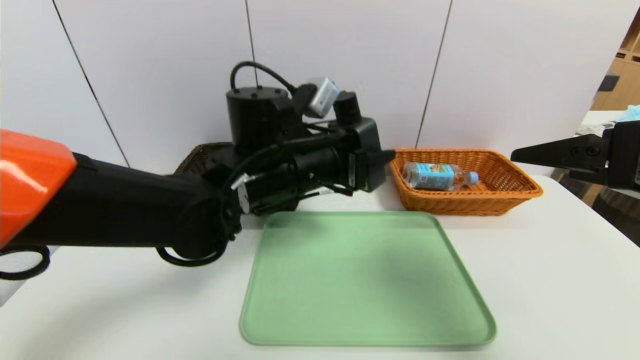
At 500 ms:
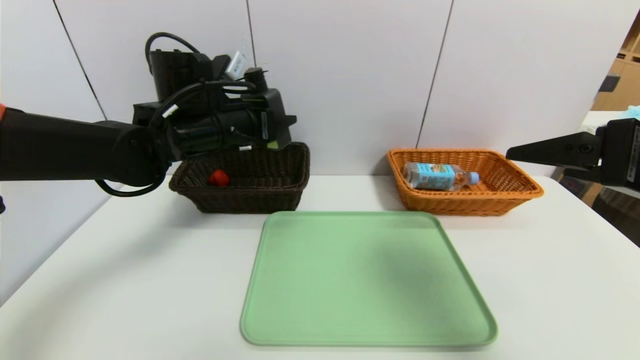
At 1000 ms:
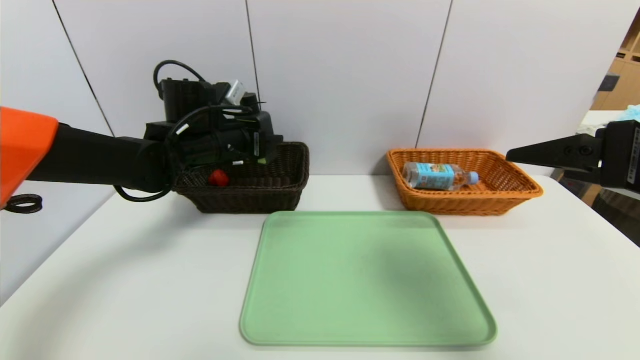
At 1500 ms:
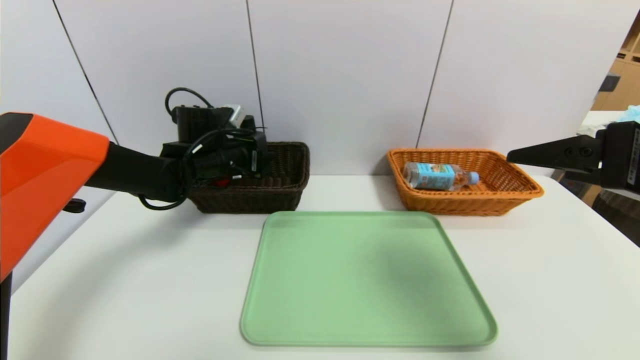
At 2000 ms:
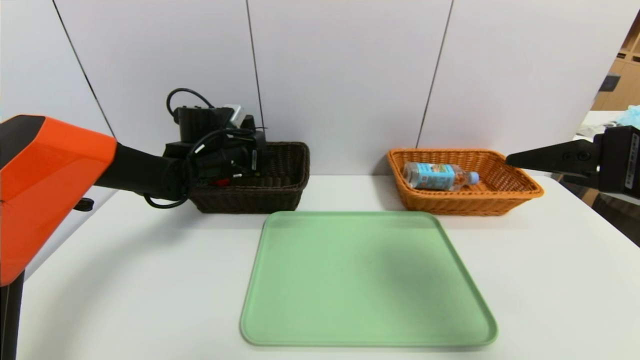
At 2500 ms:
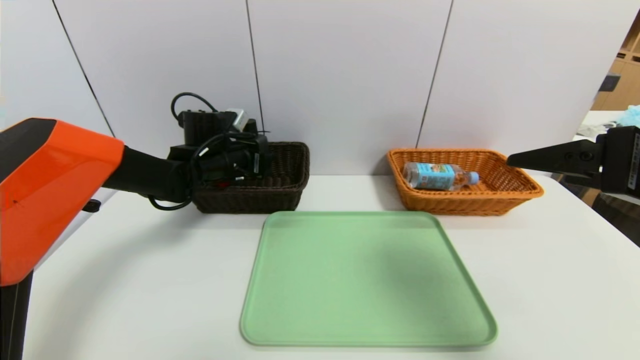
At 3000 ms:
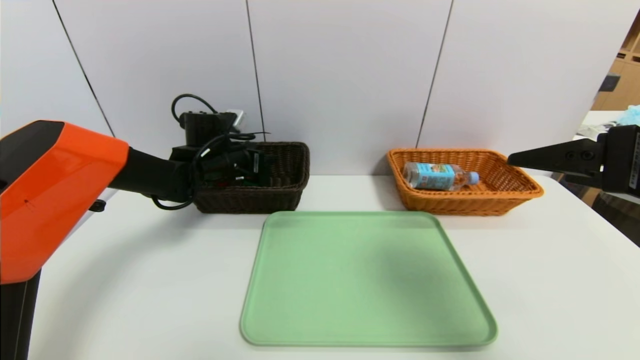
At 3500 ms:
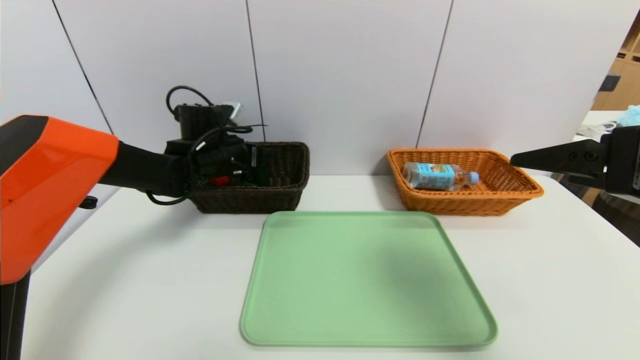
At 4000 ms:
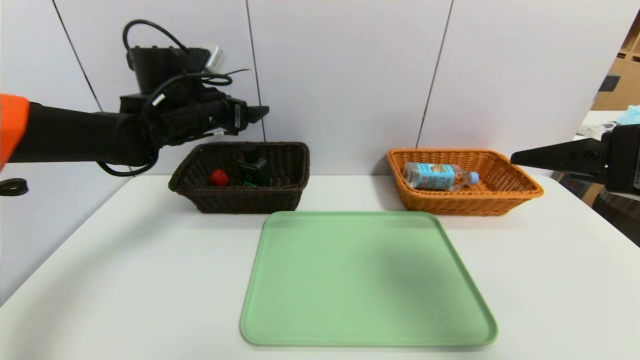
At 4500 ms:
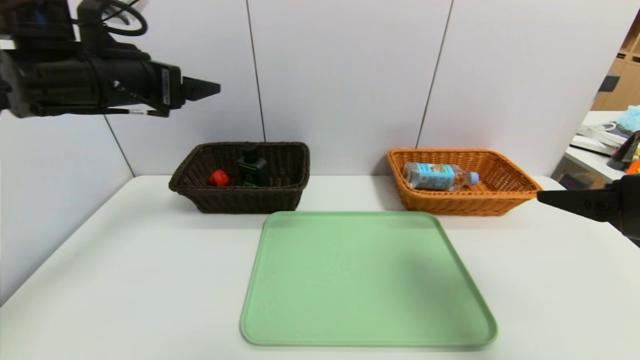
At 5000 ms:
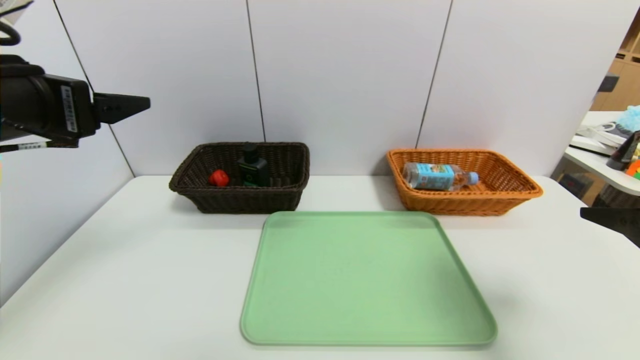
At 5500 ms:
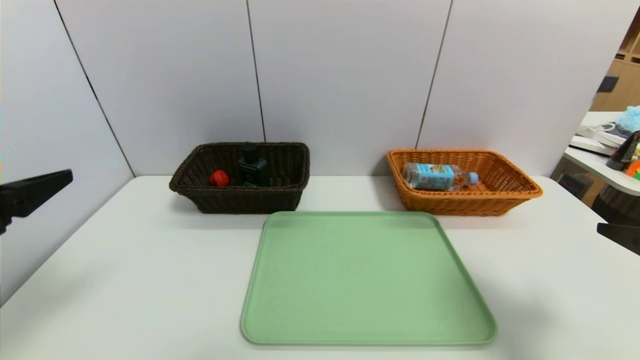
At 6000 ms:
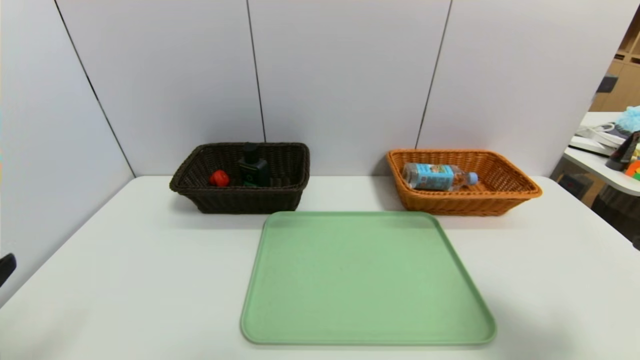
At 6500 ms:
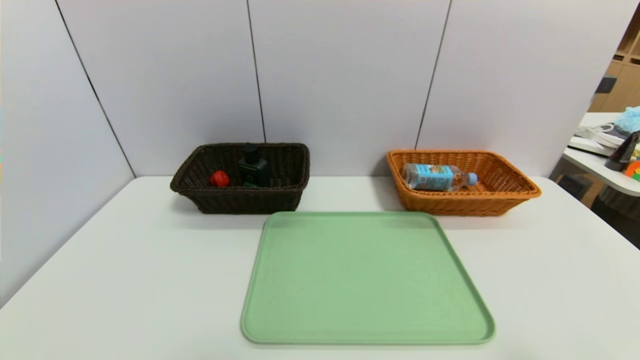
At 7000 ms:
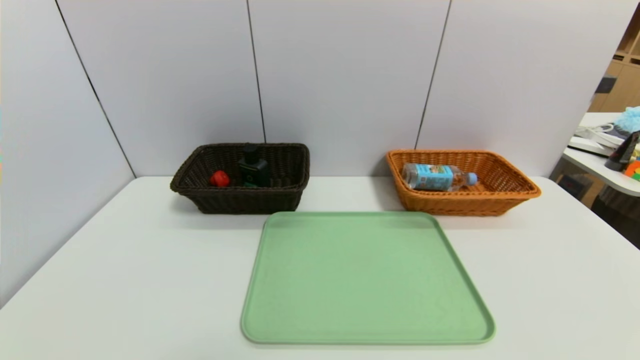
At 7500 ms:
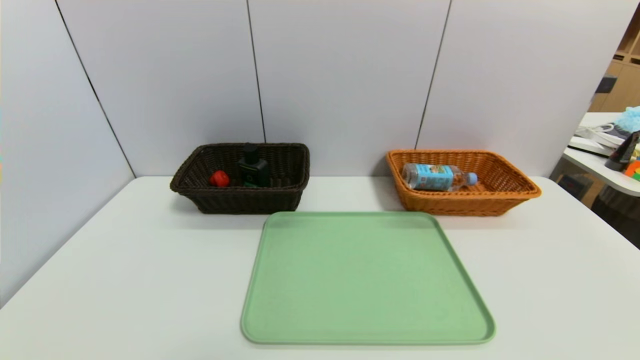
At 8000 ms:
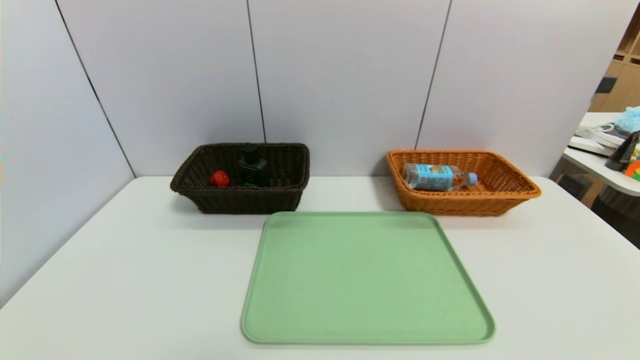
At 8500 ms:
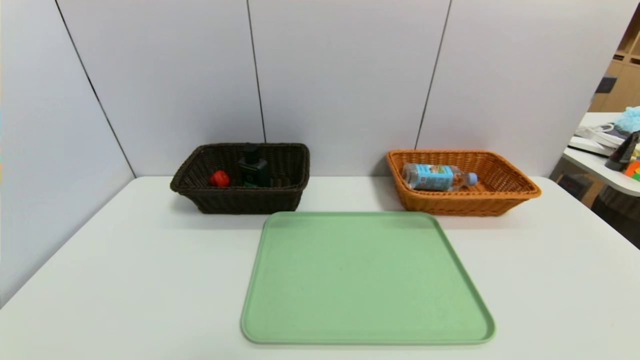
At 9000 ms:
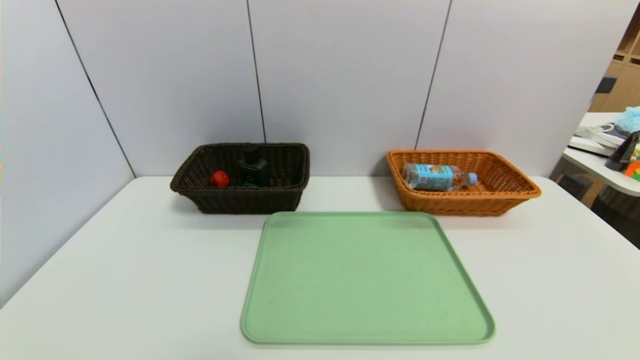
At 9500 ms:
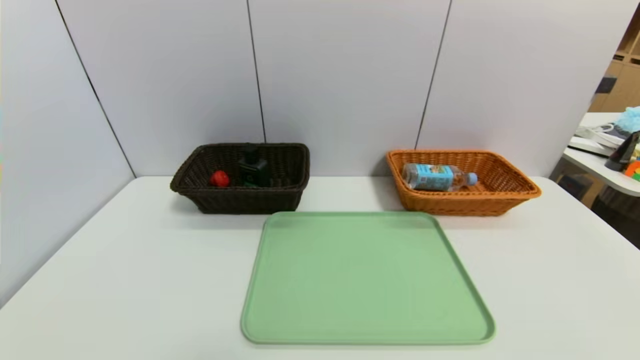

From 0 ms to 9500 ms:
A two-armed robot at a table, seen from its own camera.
Task of the whole recording: place the food in the right basket with the right gripper, and place the non food items in the left basket with the left gripper.
Step, from 0 ms to 3000 ms: Grasp the hard cleanser and put it in the left basket.
From 0 ms to 2000 ms: The left gripper is displaced to the left, forward and downward by about 20 cm.
From 2000 ms to 4000 ms: The left gripper shifts some 10 cm upward, and opens.
From 4000 ms to 5500 ms: The left gripper heads backward, covering approximately 30 cm, while the right gripper shifts about 10 cm downward and to the right.
From 5500 ms to 7500 ms: The right gripper moves backward and downward, about 20 cm. Meanwhile the left gripper moves downward and backward, about 20 cm.

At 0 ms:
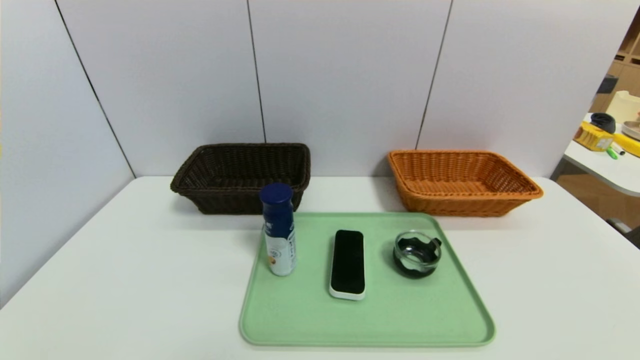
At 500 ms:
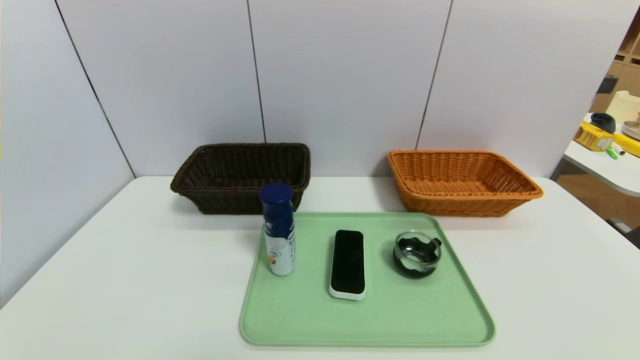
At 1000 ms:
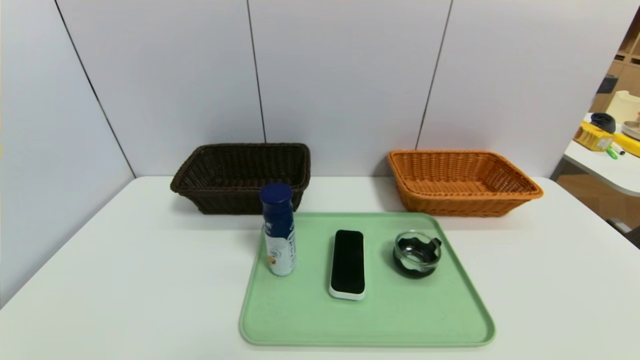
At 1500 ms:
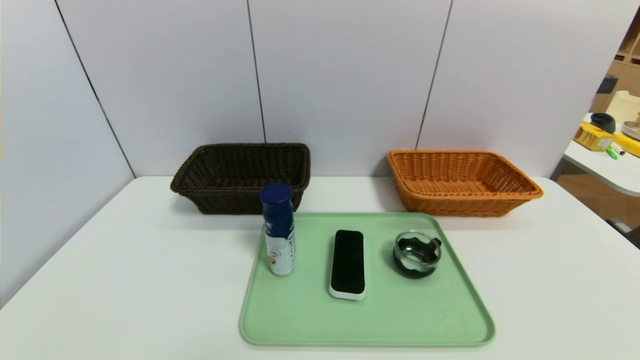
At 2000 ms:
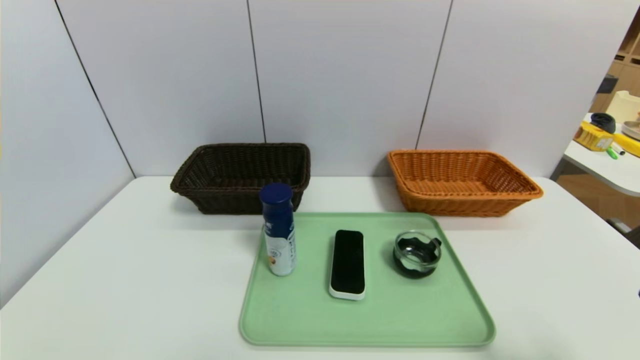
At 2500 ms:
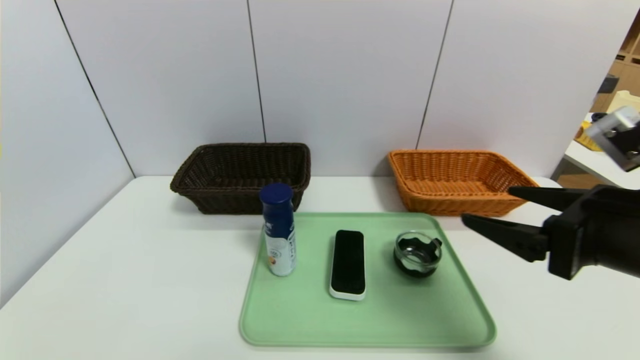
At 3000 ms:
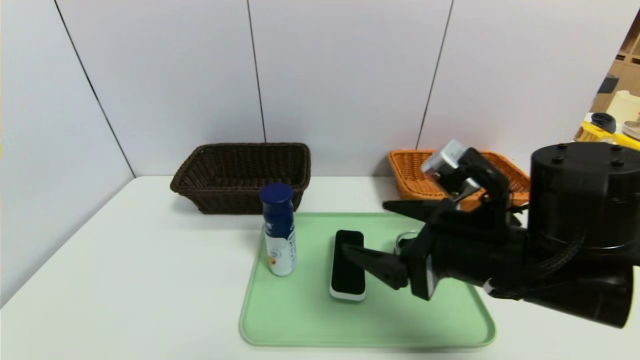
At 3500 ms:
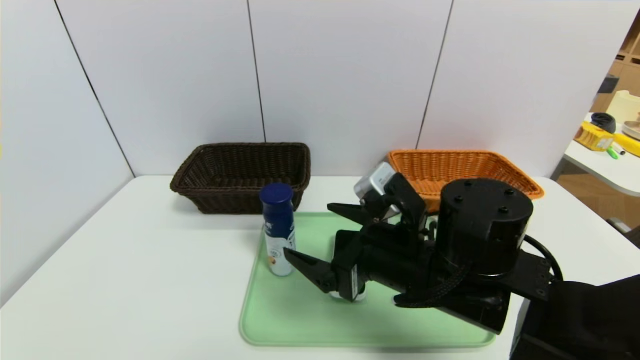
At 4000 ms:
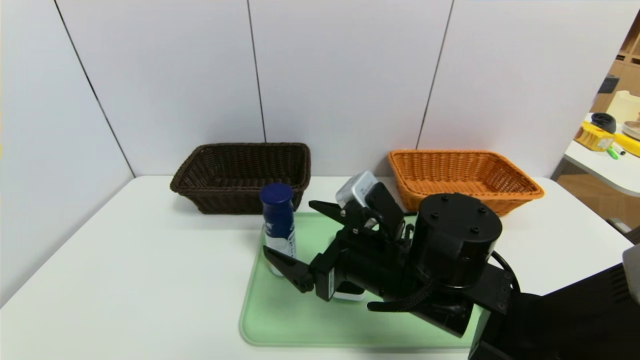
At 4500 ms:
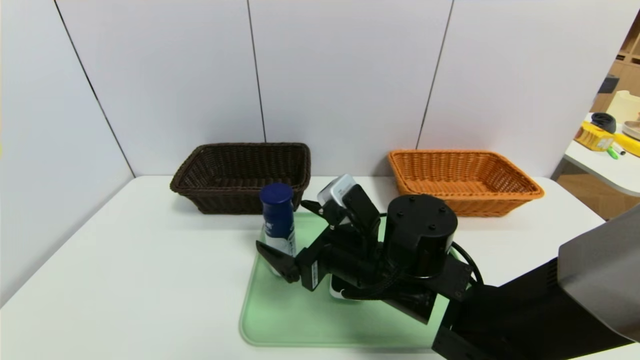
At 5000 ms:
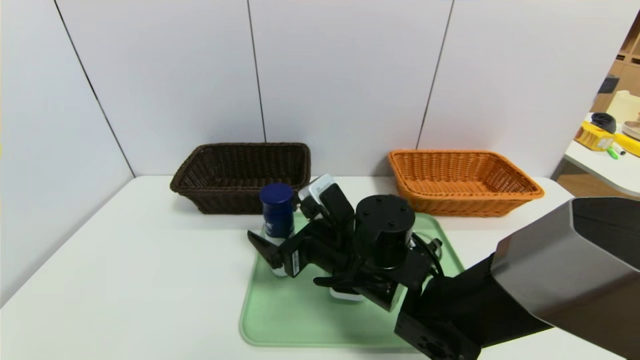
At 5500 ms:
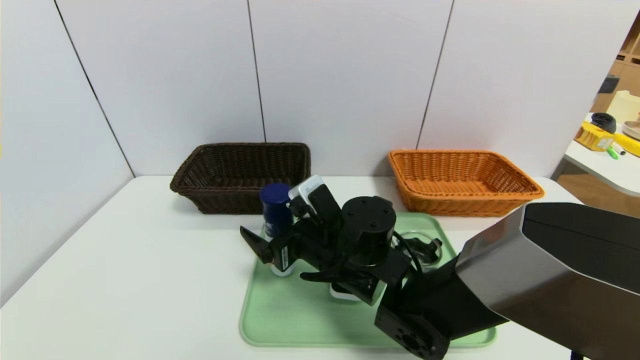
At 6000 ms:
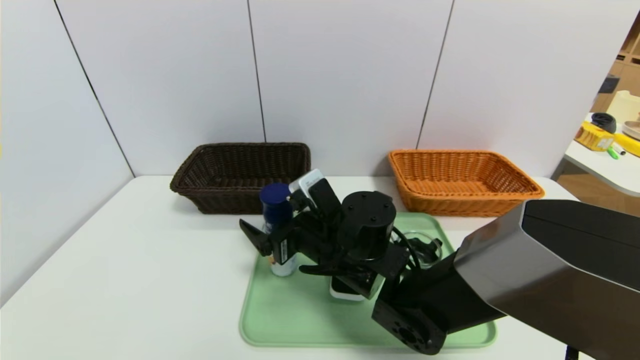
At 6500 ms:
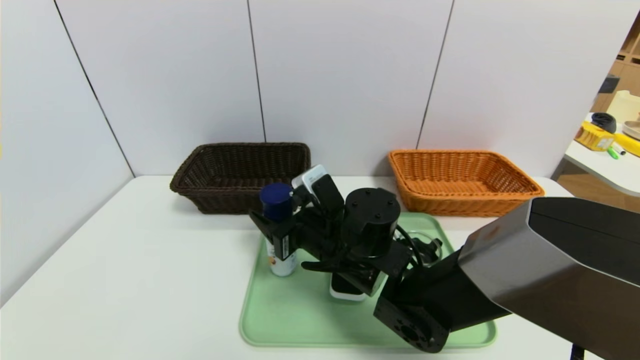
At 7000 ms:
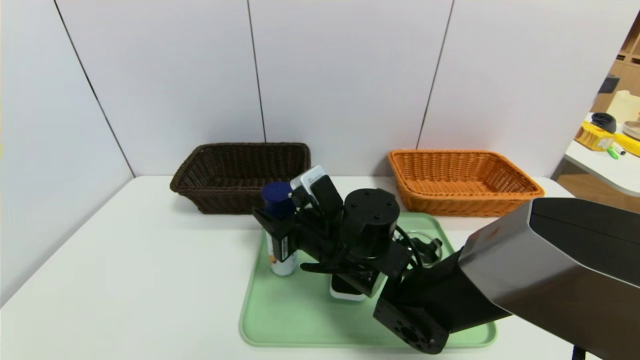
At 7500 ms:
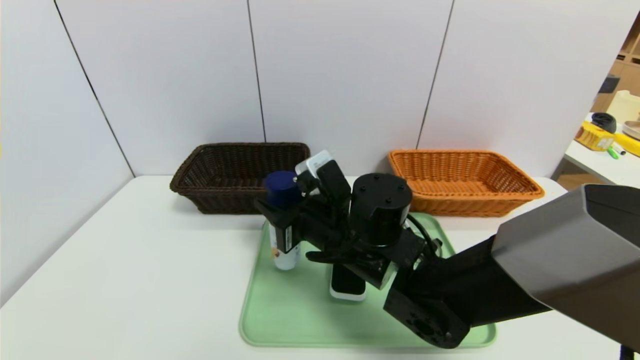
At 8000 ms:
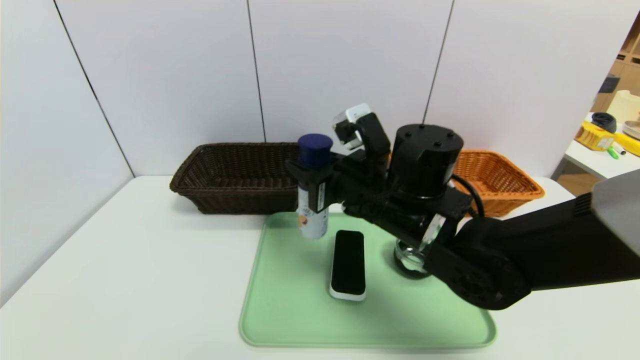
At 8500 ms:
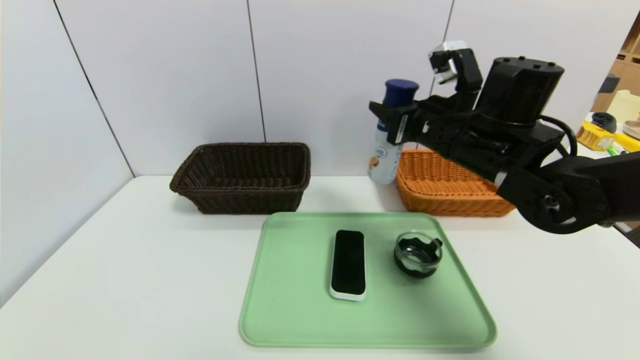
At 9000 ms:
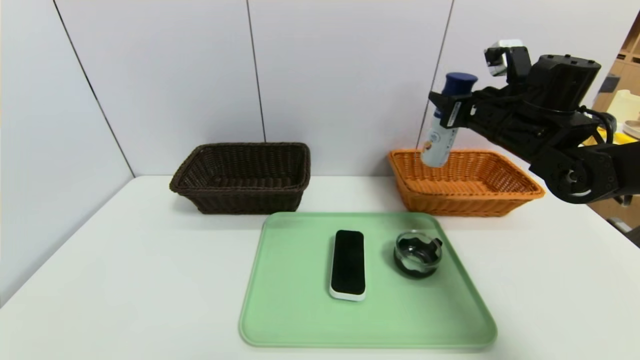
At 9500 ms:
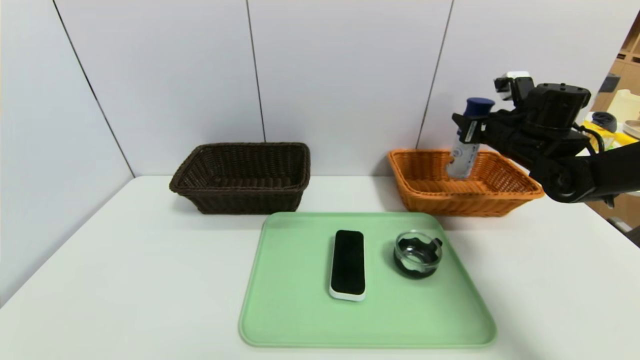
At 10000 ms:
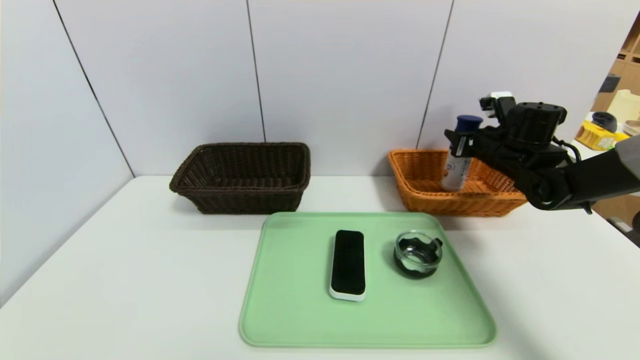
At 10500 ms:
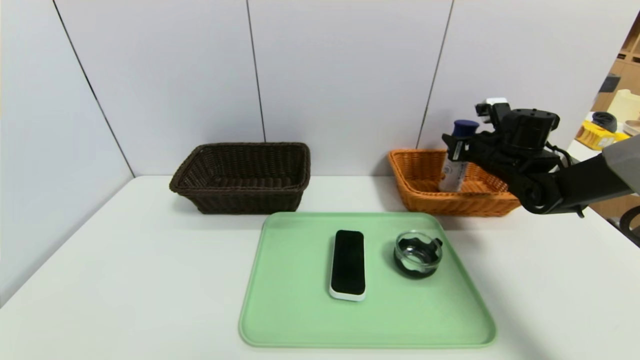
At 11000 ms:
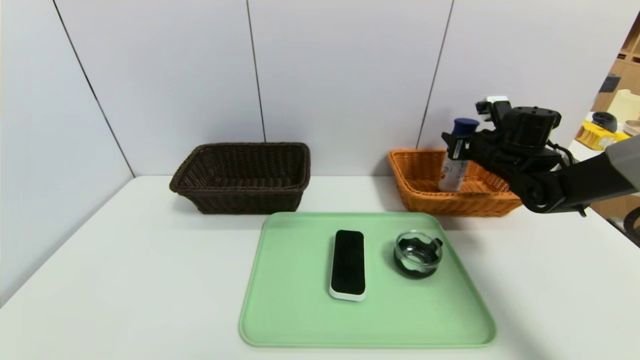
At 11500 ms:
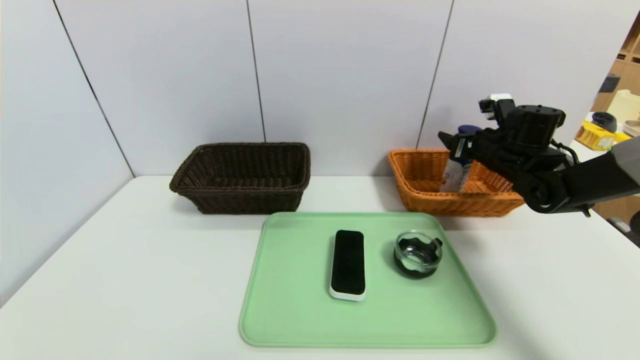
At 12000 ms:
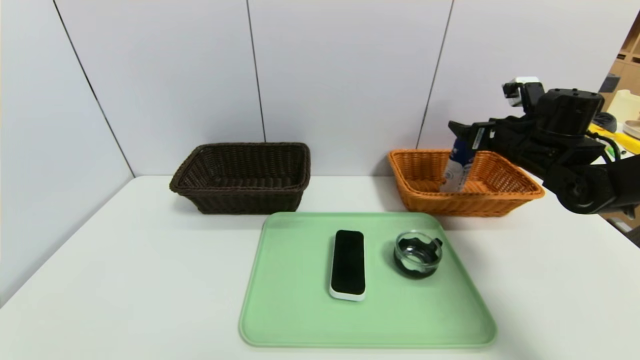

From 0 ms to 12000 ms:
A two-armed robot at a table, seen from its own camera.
Task of the whole recording: place the food in the right basket with the right gripper, and place the non food items in the left basket with the left gripper.
Step, from 0 ms to 11500 ms: Grasp the yogurt and put it in the right basket.
From 2000 ms to 4000 ms: The right gripper heads to the left and forward, covering approximately 30 cm.
From 4000 ms to 6000 ms: The right gripper goes approximately 10 cm forward and to the left.
From 6000 ms to 8000 ms: The right gripper shifts some 10 cm upward and to the right, and closes its fingers.
From 8000 ms to 10000 ms: The right gripper goes approximately 30 cm to the right and forward.
From 10000 ms to 12000 ms: The right gripper moves roughly 5 cm, and opens up.
